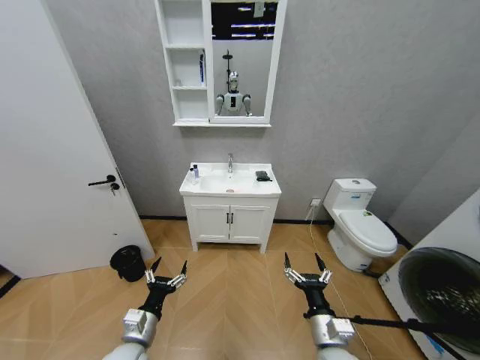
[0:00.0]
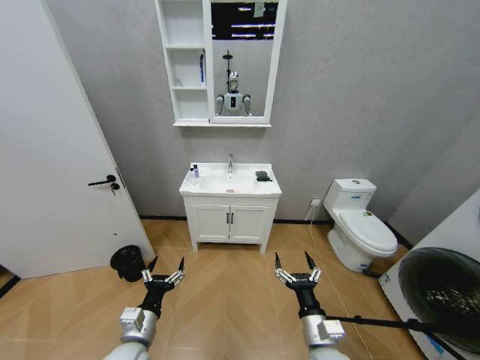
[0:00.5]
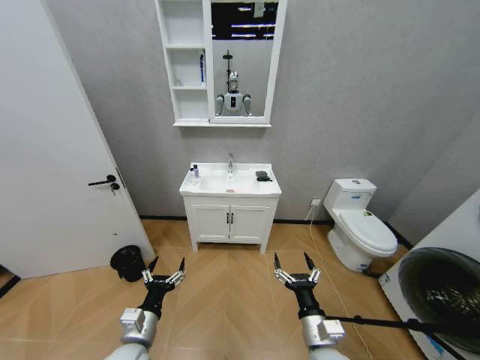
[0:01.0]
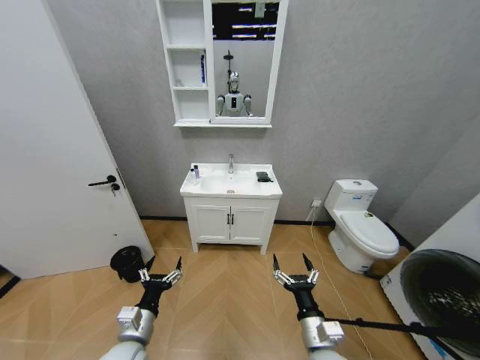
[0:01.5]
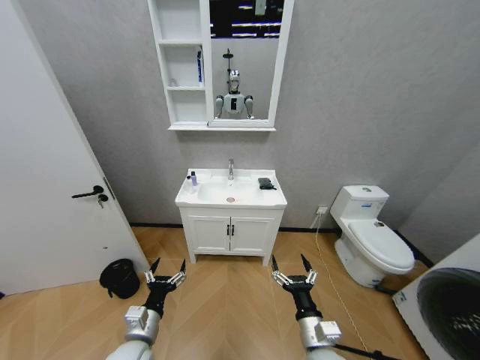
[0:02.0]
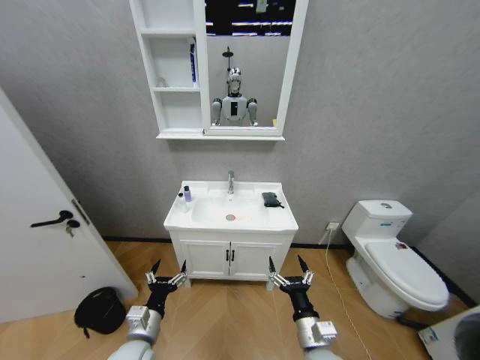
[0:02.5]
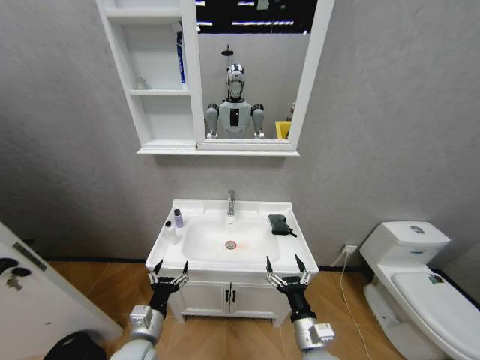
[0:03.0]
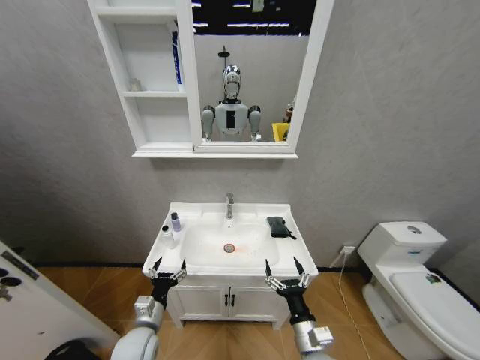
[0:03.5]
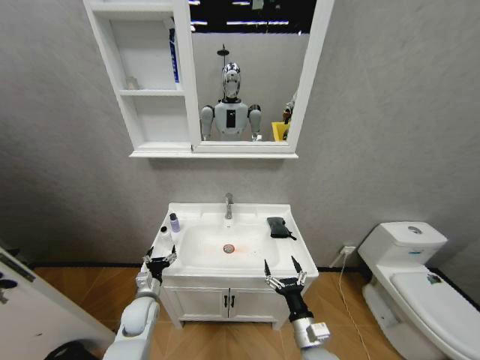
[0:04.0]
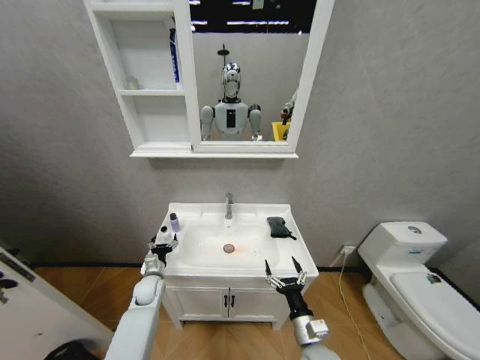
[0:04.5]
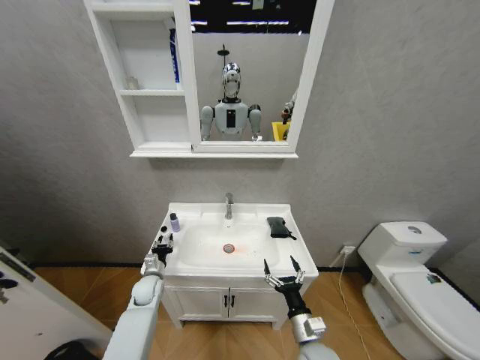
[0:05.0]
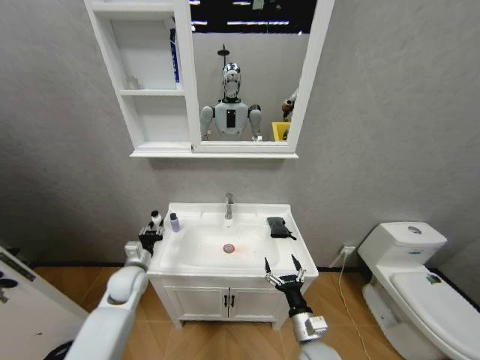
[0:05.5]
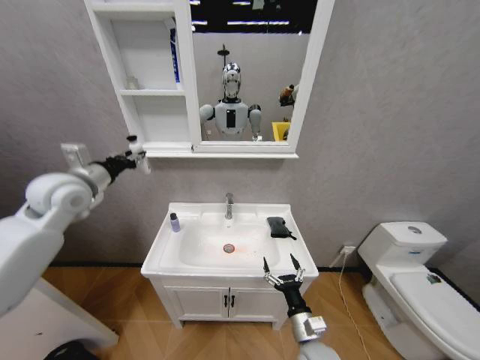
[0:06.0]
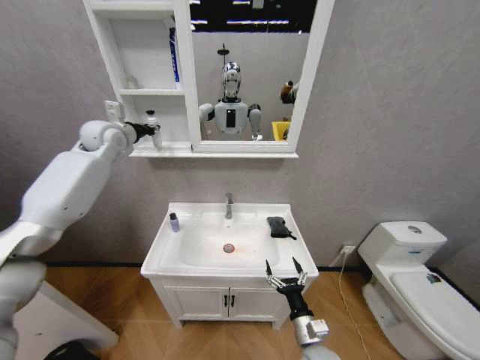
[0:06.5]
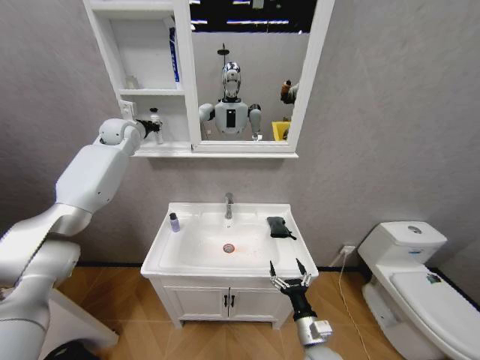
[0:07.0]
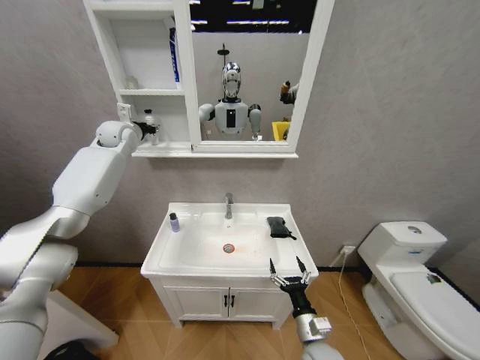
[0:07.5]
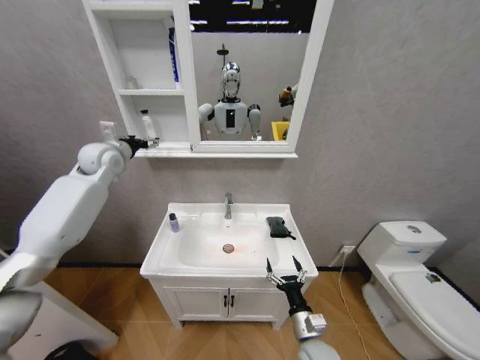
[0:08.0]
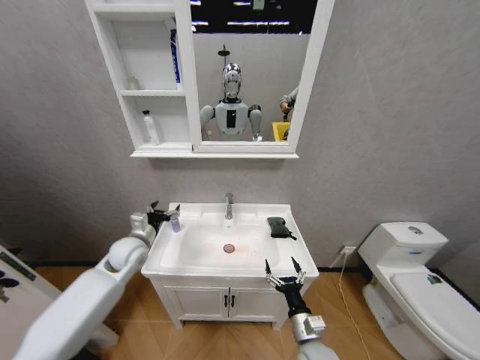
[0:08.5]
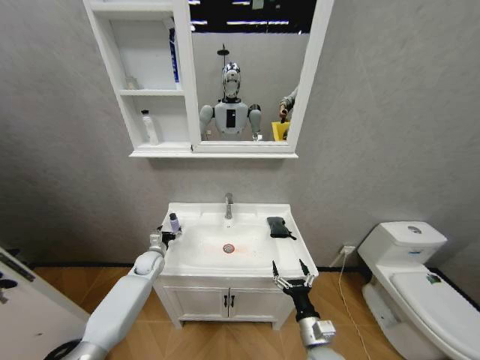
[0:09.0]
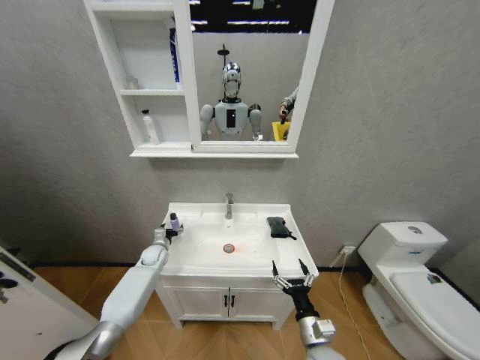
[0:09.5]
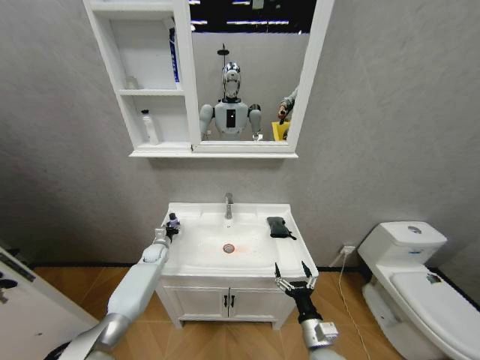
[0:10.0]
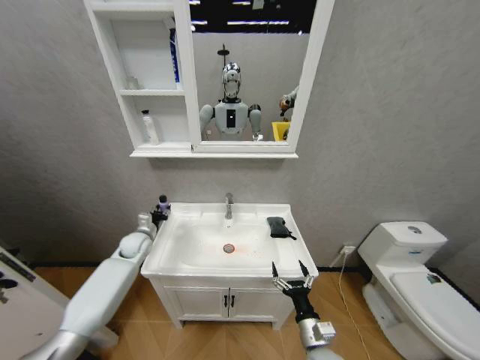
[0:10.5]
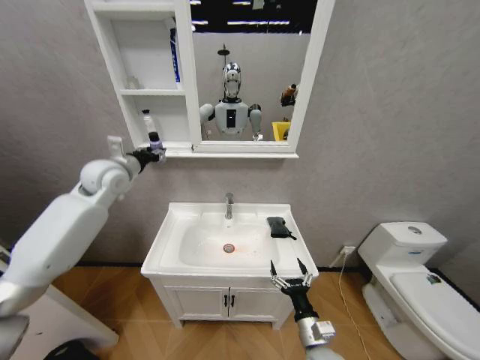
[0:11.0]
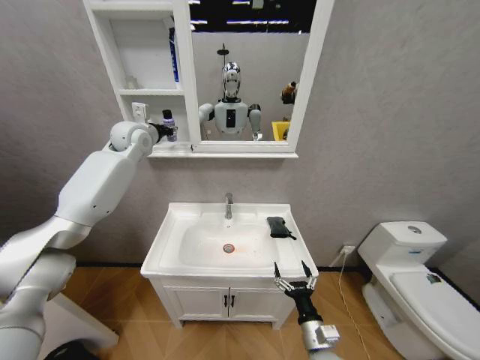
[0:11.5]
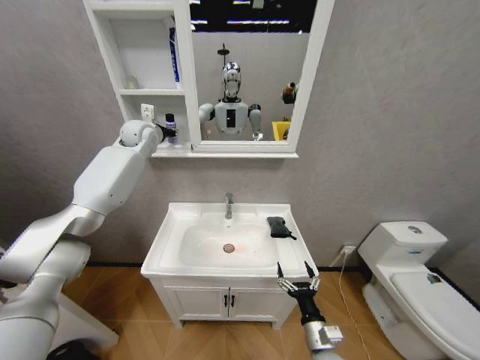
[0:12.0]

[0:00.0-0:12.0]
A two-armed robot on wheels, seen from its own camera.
Task of the whole recording: Move facial cleanser and shampoo from washbasin to cabinet, then wipe washbasin with towel.
0:02.0 to 0:04.0: The left gripper heads forward and downward, covering approximately 15 cm.
0:04.0 to 0:06.0: The left gripper moves upward, approximately 40 cm, and closes up.
0:06.0 to 0:08.0: The left gripper is displaced forward by about 15 cm, and opens up.
0:08.0 to 0:10.0: The left gripper shifts approximately 40 cm downward, and closes up.
0:10.0 to 0:12.0: The left gripper heads upward, covering approximately 50 cm.

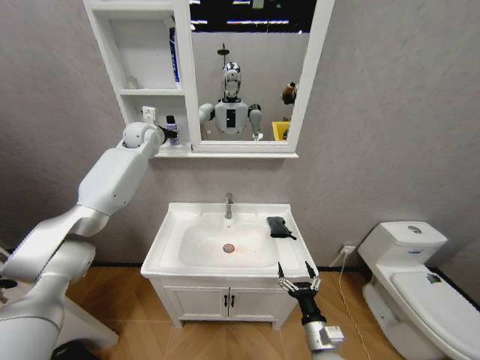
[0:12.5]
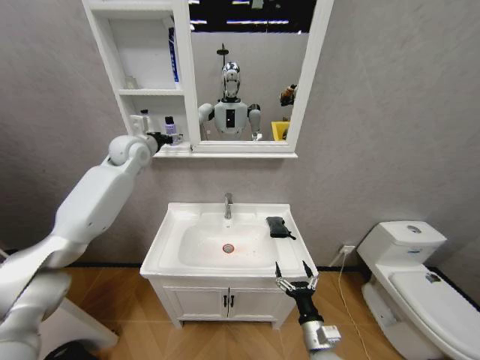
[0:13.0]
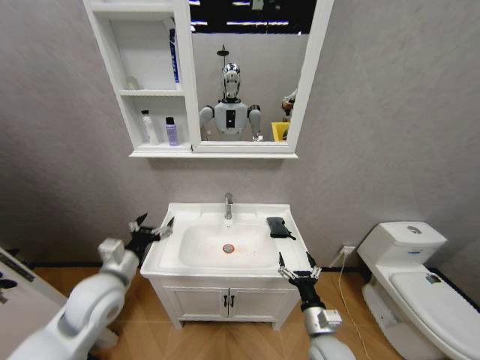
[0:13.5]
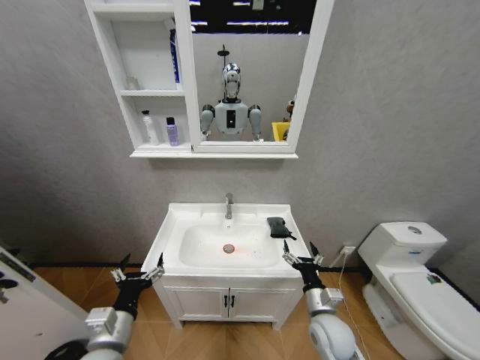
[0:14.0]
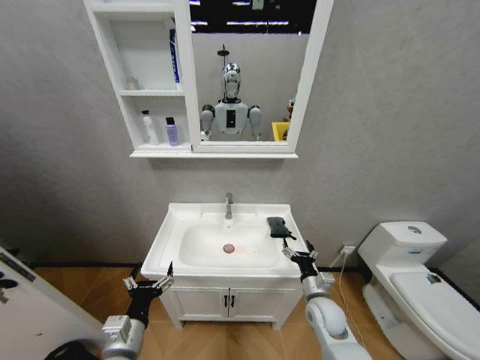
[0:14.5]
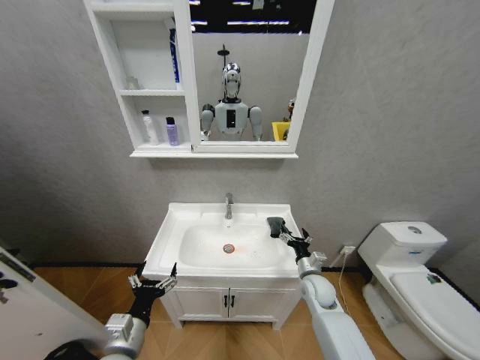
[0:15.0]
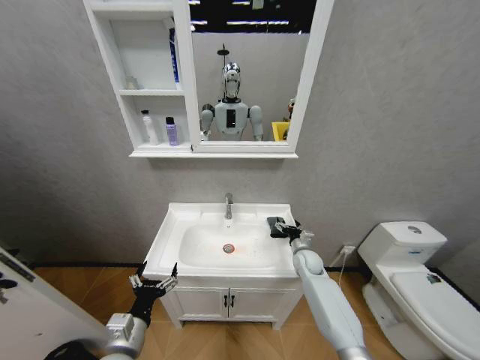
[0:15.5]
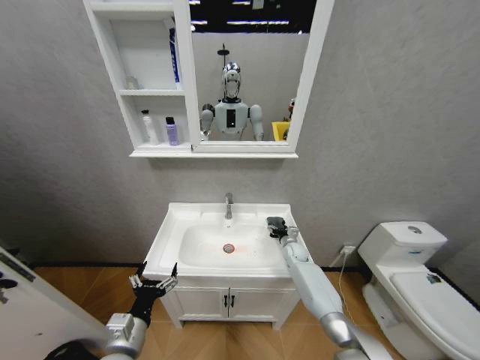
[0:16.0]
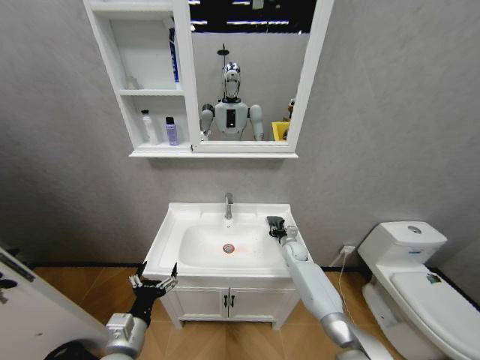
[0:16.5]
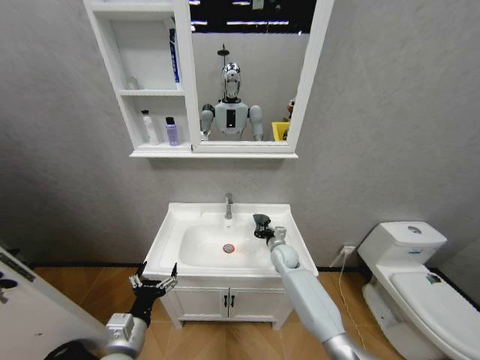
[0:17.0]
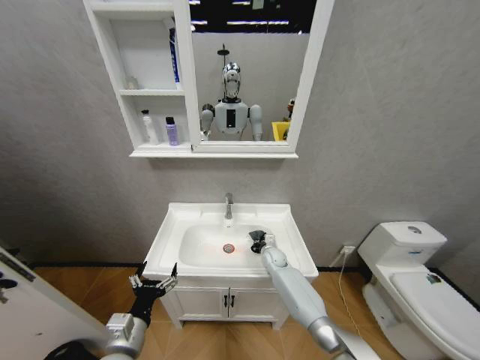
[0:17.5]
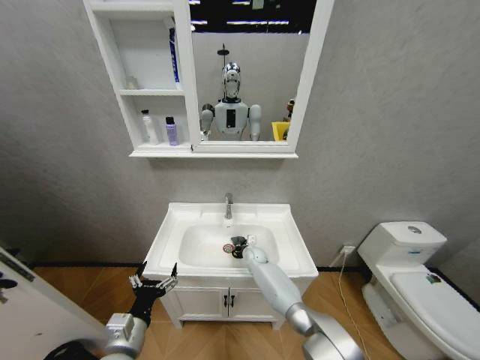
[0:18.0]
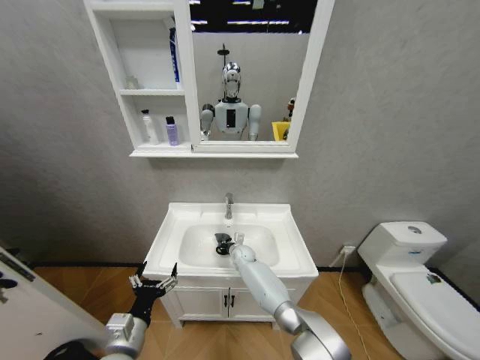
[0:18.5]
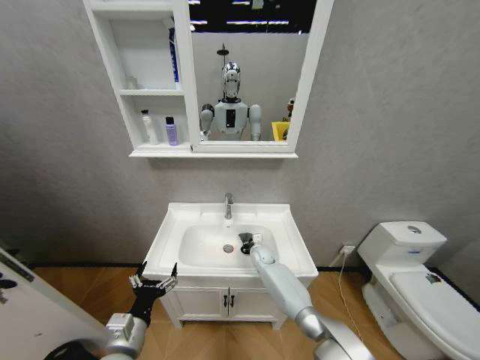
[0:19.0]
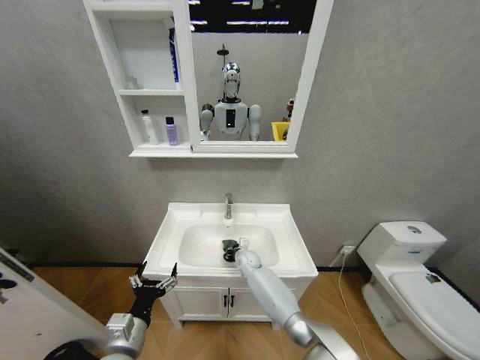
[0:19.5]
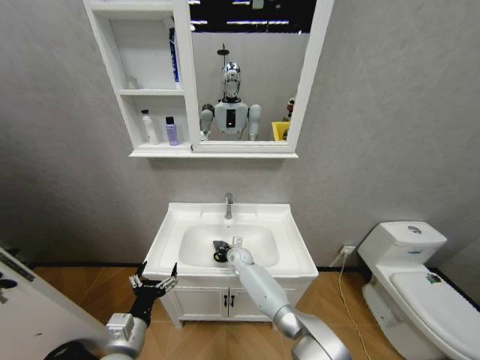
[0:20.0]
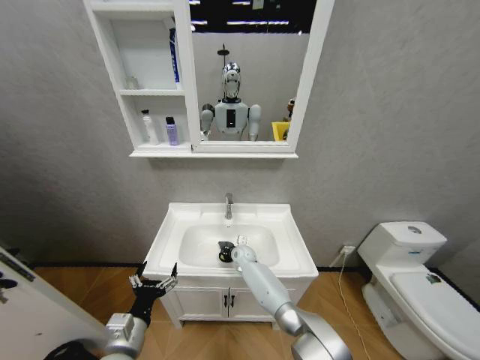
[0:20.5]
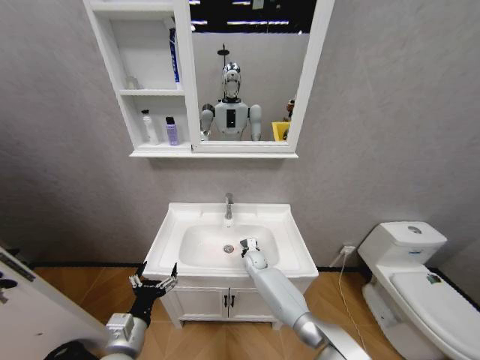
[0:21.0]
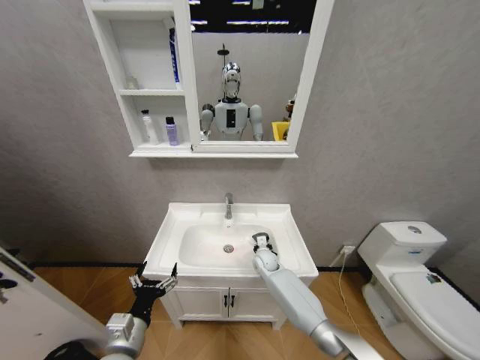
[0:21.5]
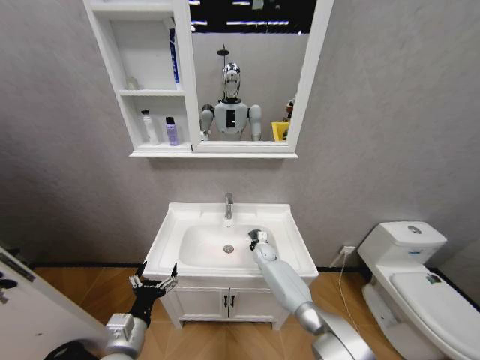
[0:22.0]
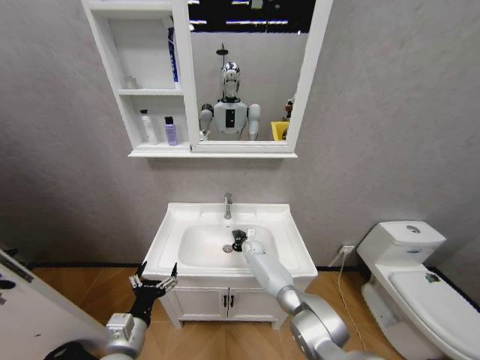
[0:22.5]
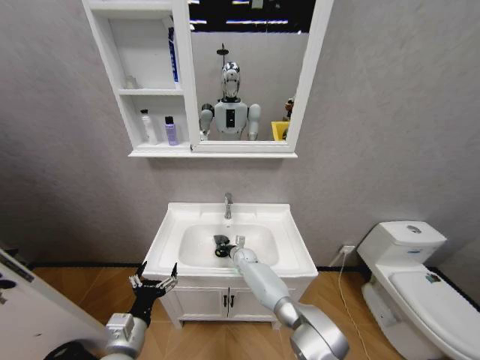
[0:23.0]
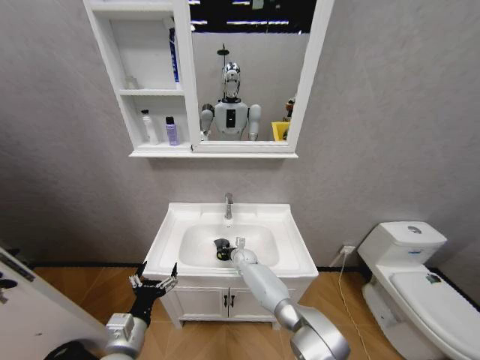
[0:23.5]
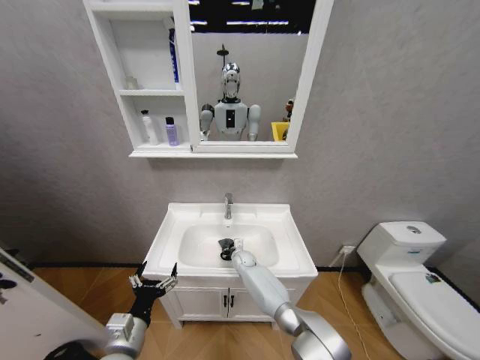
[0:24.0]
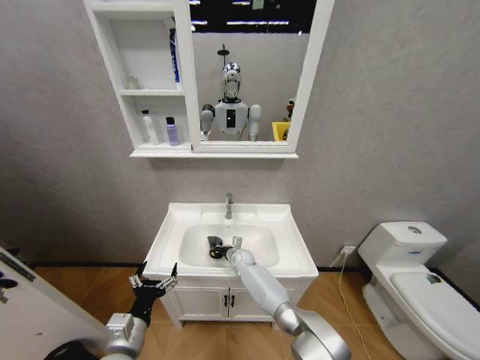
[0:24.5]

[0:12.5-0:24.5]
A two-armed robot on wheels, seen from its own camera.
Task of the whole recording: Move facial cleanser and shampoo from washbasin to cabinet, then wipe washbasin with towel.
0:12.5 to 0:14.5: The right gripper shifts about 10 cm forward; the left gripper heads backward and downward, covering some 60 cm, and opens its fingers.
0:14.5 to 0:16.5: The right gripper is displaced forward by some 25 cm, and closes.
0:16.5 to 0:18.5: The right gripper is displaced to the left by some 20 cm, and closes.
0:18.5 to 0:20.5: The right gripper reaches approximately 10 cm to the right, then returns.
0:22.5 to 0:24.5: The right gripper changes place by roughly 5 cm.

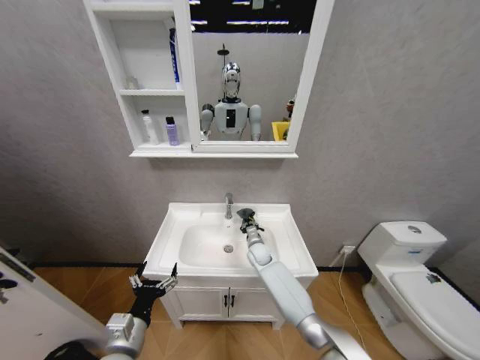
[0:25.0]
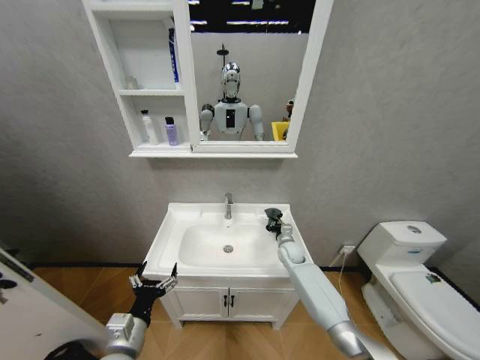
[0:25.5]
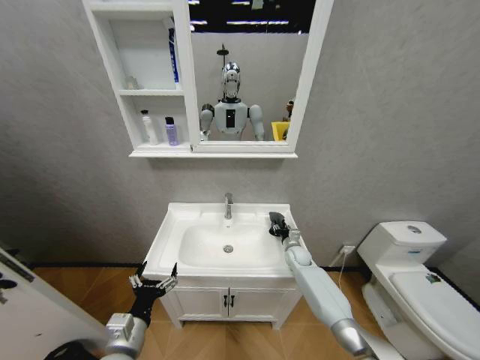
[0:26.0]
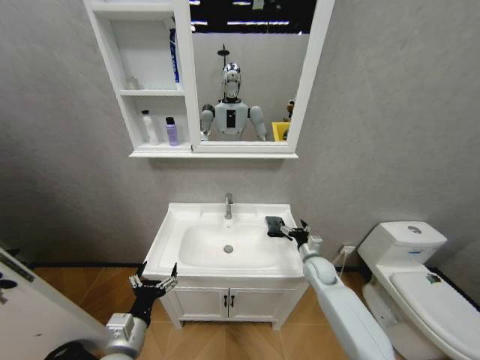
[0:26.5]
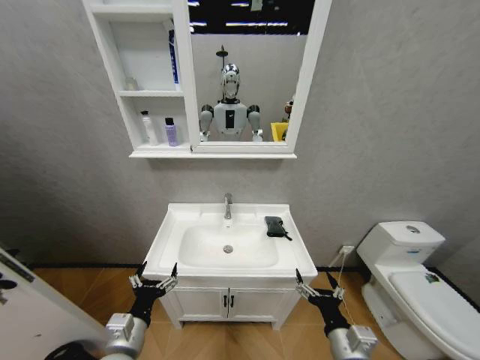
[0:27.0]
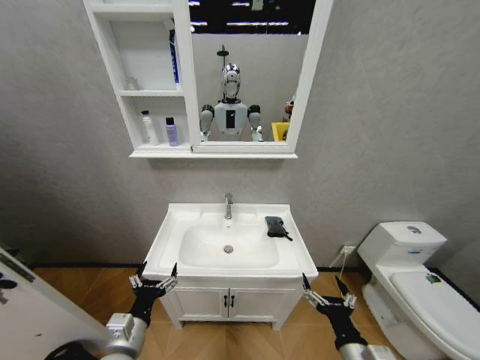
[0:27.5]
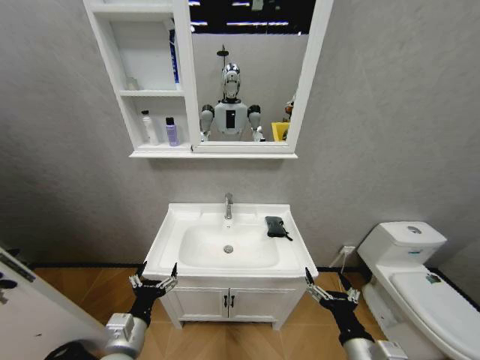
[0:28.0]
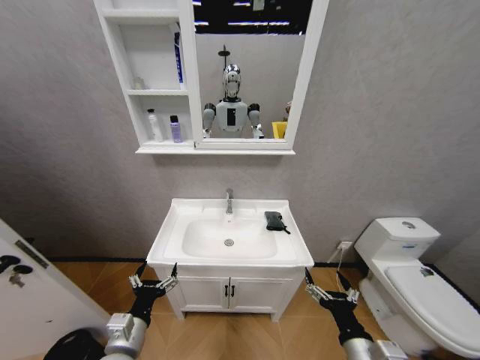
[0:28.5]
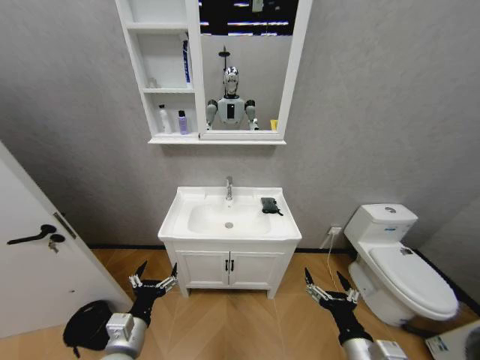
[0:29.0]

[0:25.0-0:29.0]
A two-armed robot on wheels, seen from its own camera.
Task of the whole recording: Move facial cleanser and shampoo from washbasin to cabinet, then wipe washbasin with towel.
0:25.0 to 0:27.0: The right gripper is displaced backward by roughly 35 cm, and opens up.
